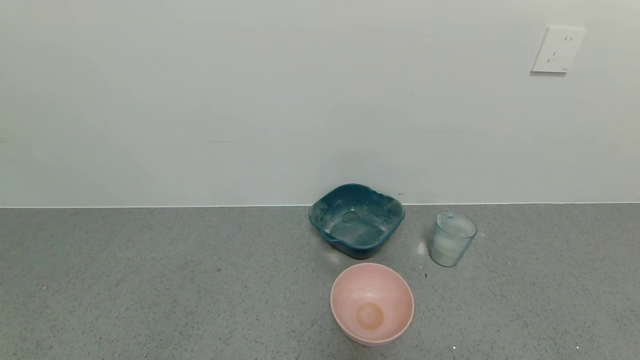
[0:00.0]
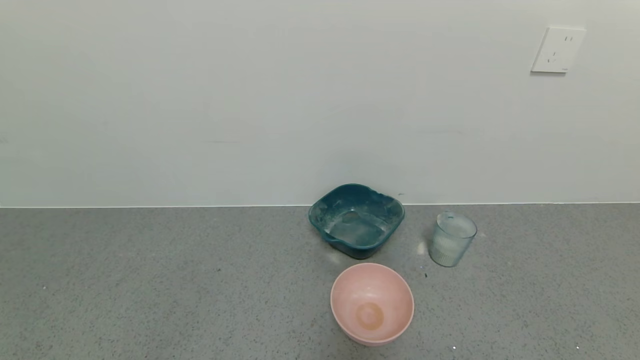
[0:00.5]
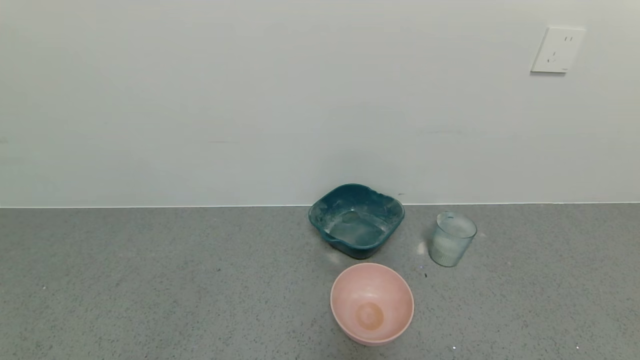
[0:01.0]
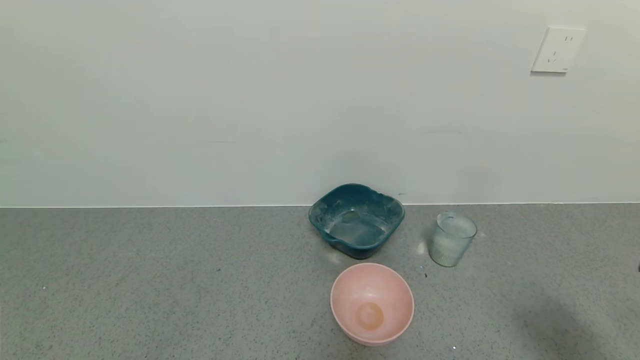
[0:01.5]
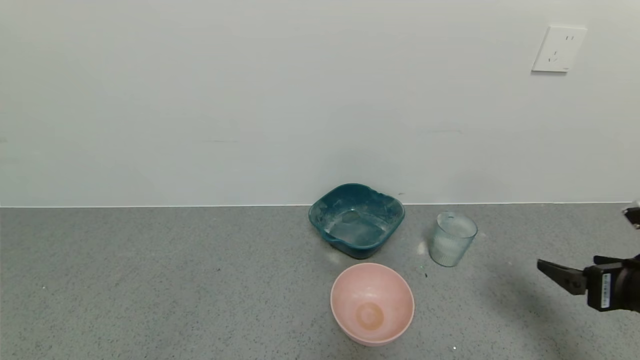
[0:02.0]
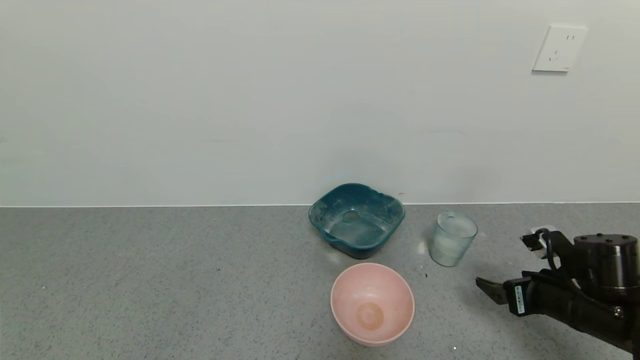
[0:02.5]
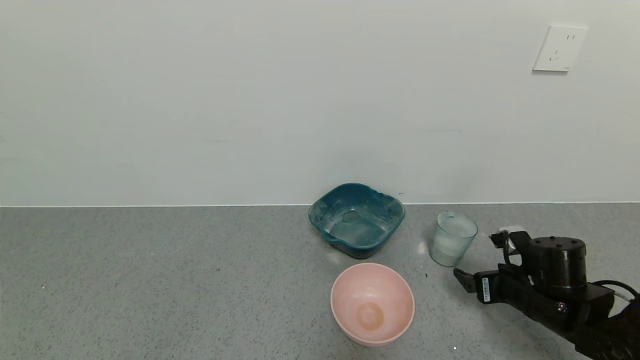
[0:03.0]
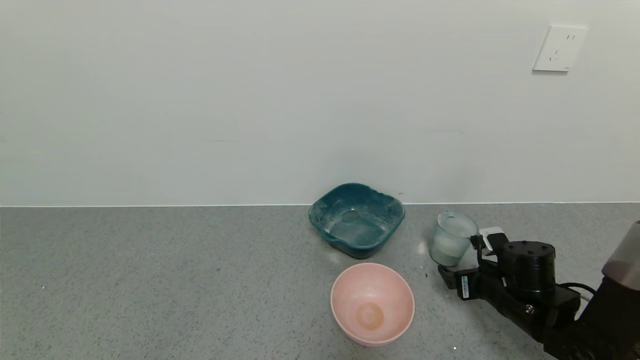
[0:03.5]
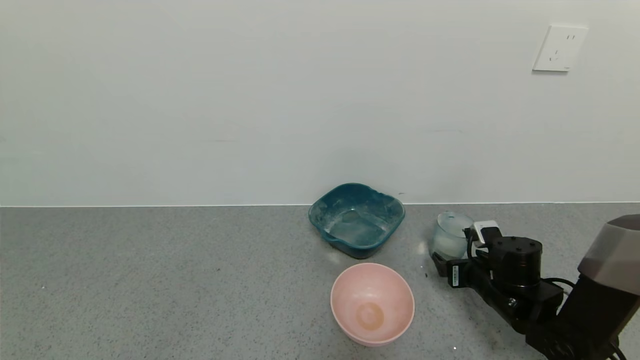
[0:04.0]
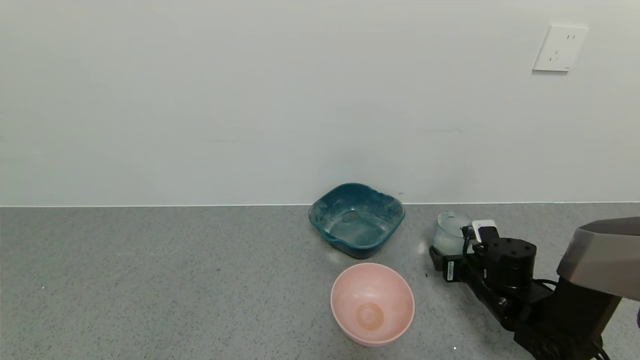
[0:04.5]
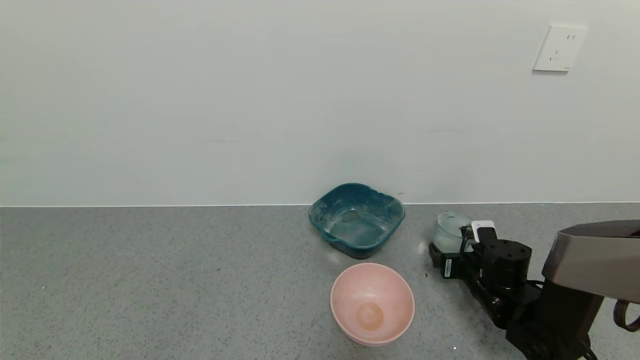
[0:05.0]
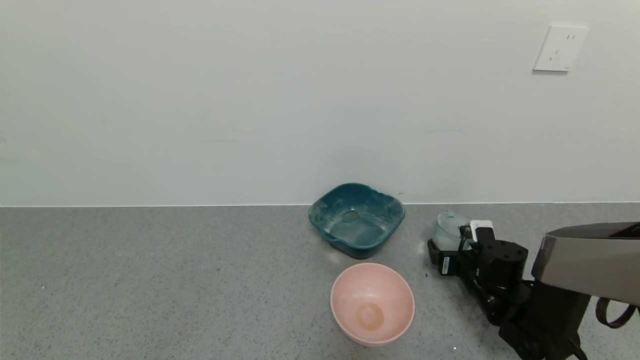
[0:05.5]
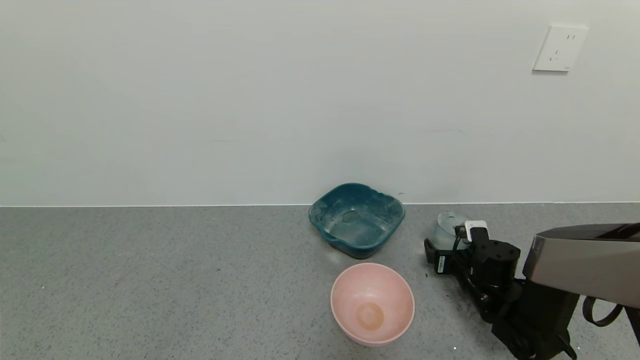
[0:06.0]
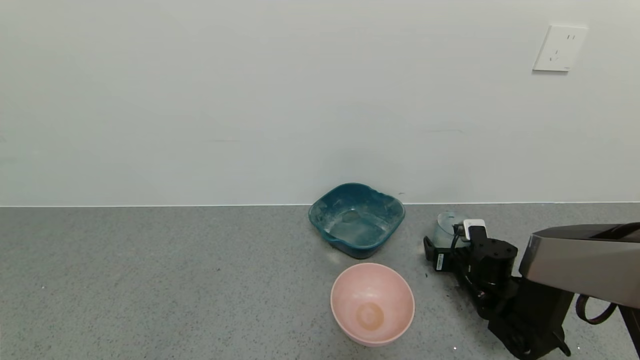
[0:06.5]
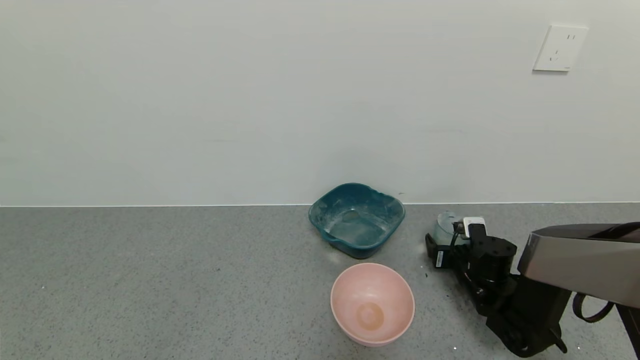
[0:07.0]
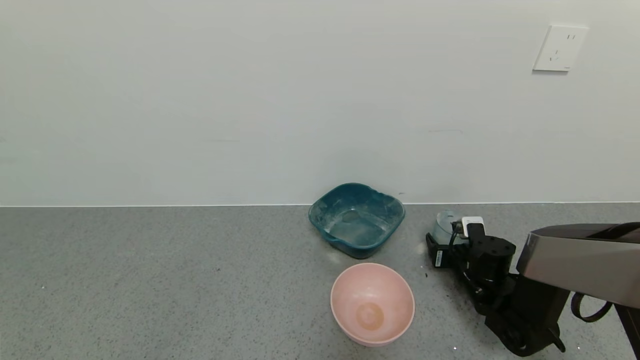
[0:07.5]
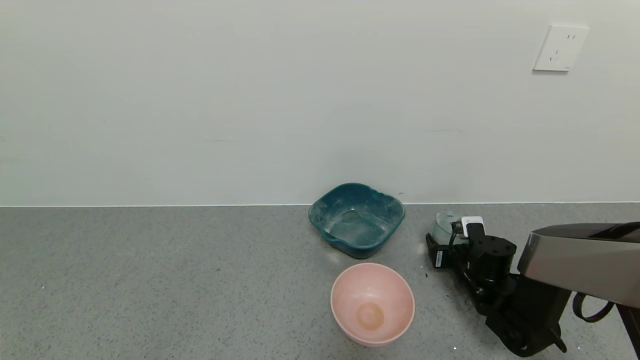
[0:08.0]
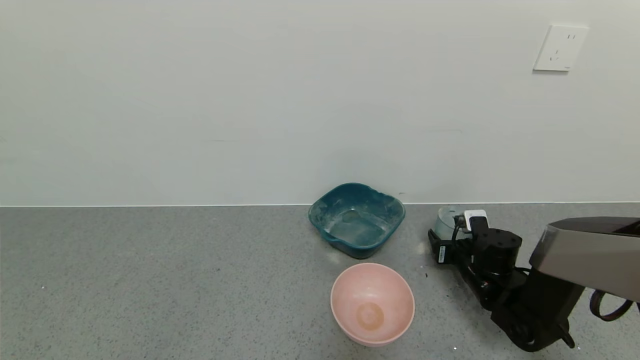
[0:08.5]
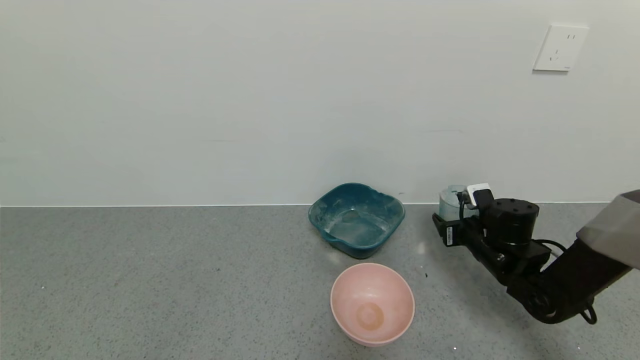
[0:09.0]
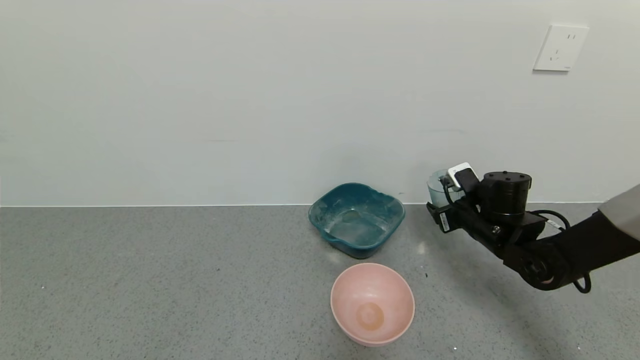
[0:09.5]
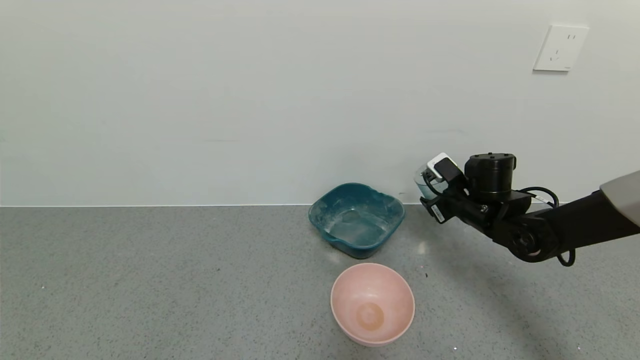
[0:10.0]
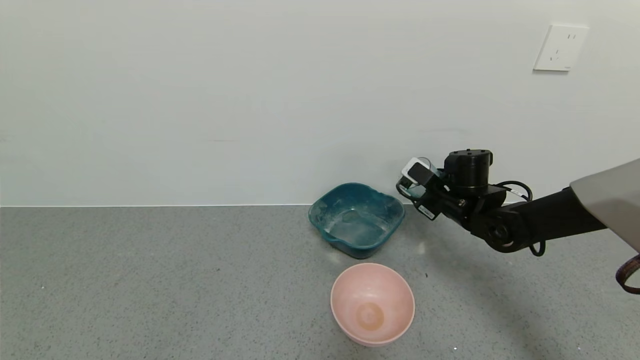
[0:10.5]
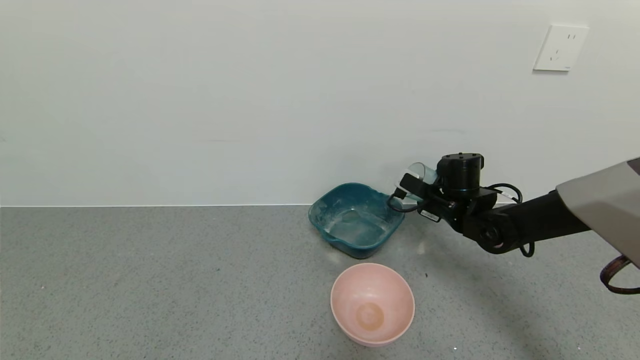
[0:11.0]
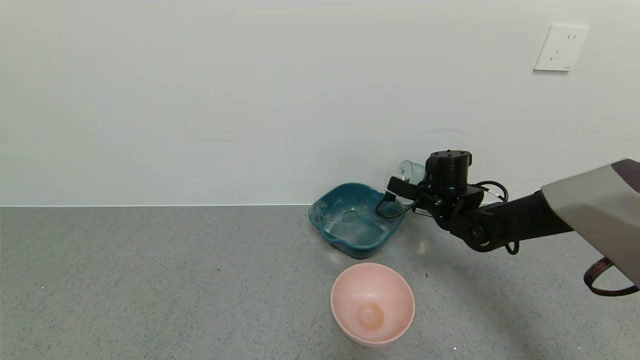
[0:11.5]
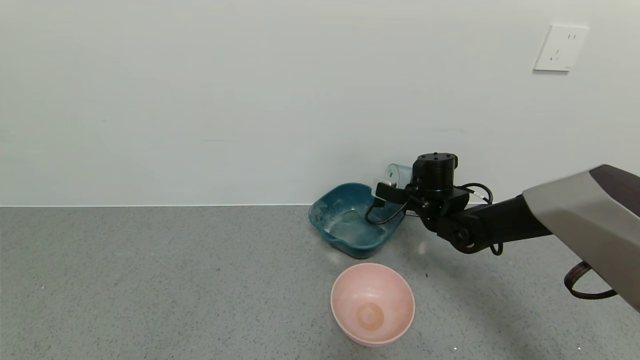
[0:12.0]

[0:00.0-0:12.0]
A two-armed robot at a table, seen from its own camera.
Task of the whole recording: use a gripper to pick up the cup and pour the powder into a bowl or tray.
Step, 0:00.0 to 0:07.5: Grasp the glass of powder with the right gripper.
0:00.0 to 0:02.0: The right gripper heads forward, covering some 20 cm.
0:02.0 to 0:04.0: The right gripper travels downward, forward and to the left by roughly 20 cm.
0:04.0 to 0:06.0: The right gripper changes place by approximately 5 cm.
0:06.0 to 0:08.0: The right gripper closes.
0:08.0 to 0:10.0: The right gripper goes some 15 cm upward.
0:10.0 to 0:12.0: The right gripper goes approximately 5 cm to the left.

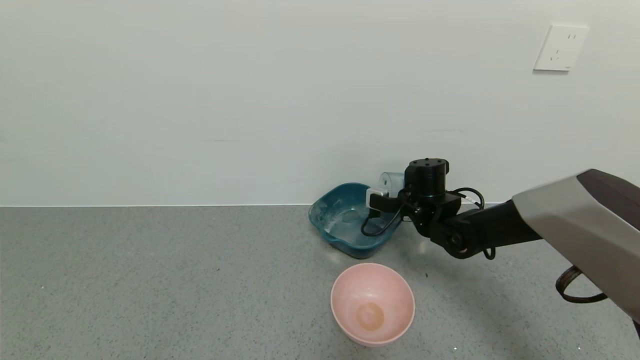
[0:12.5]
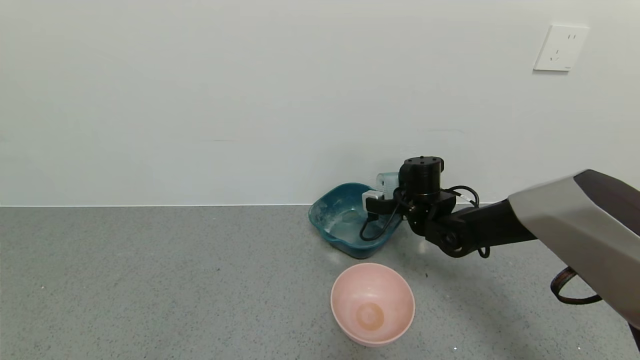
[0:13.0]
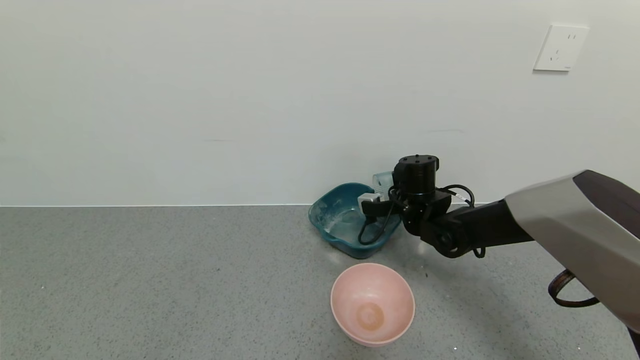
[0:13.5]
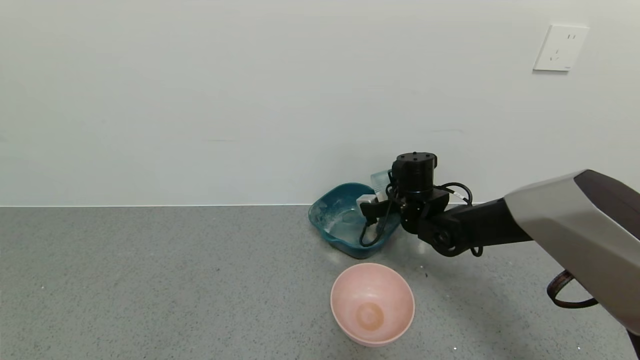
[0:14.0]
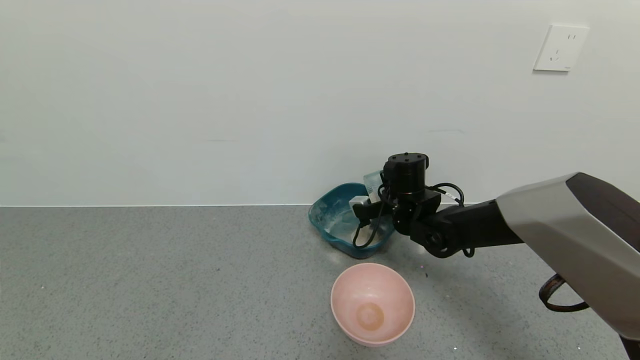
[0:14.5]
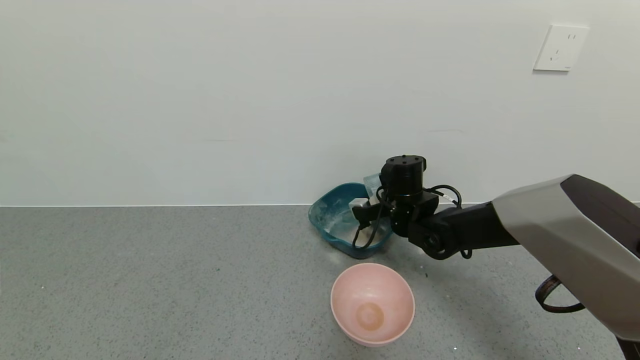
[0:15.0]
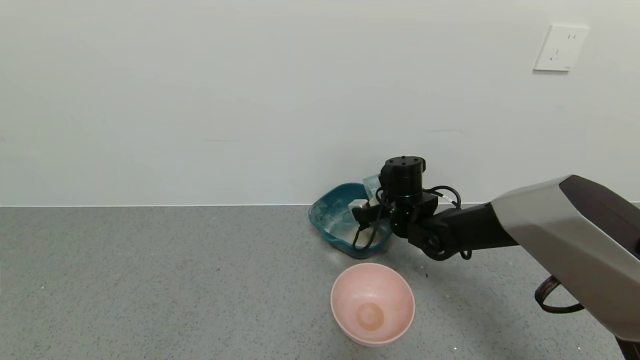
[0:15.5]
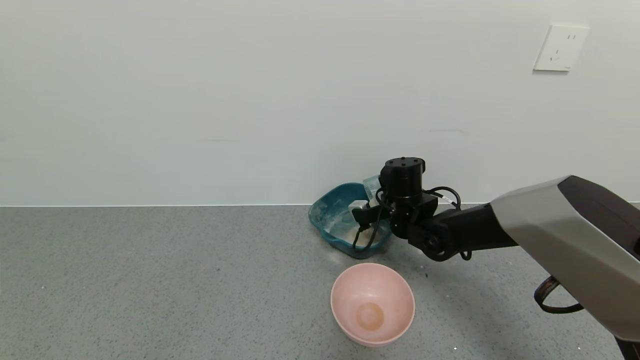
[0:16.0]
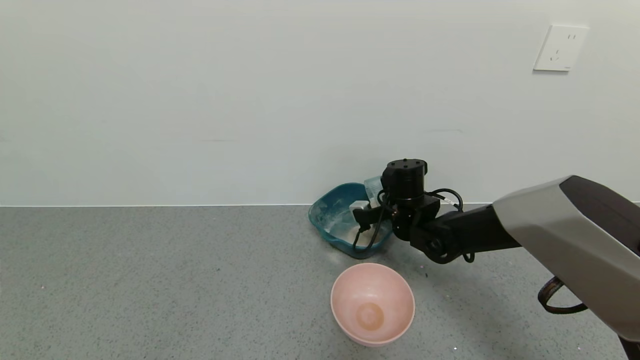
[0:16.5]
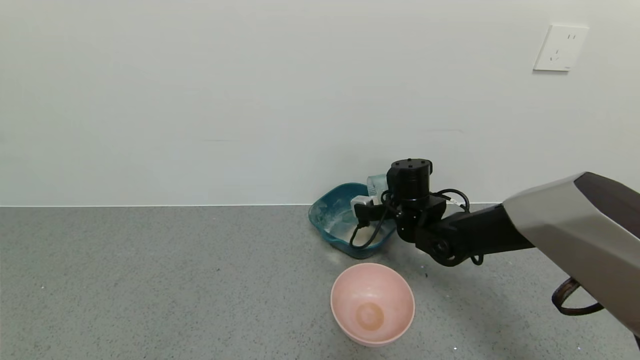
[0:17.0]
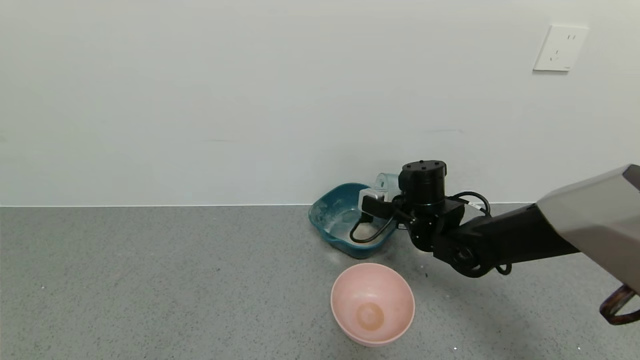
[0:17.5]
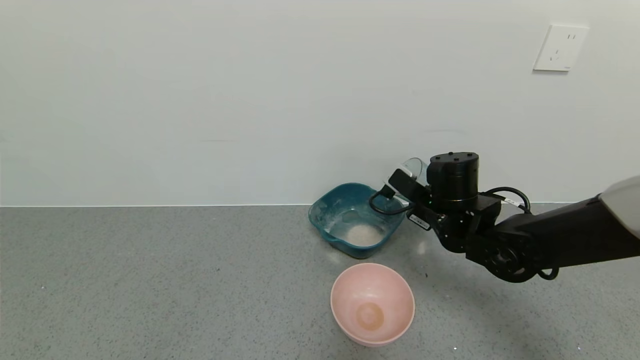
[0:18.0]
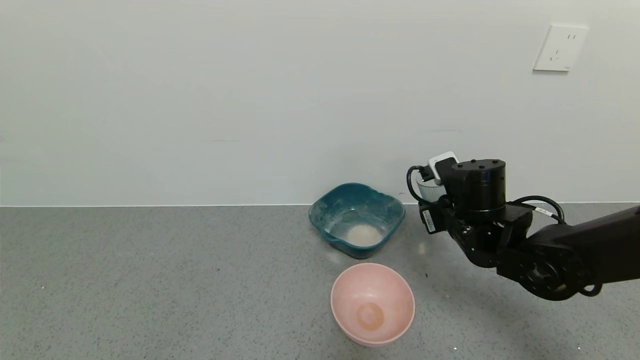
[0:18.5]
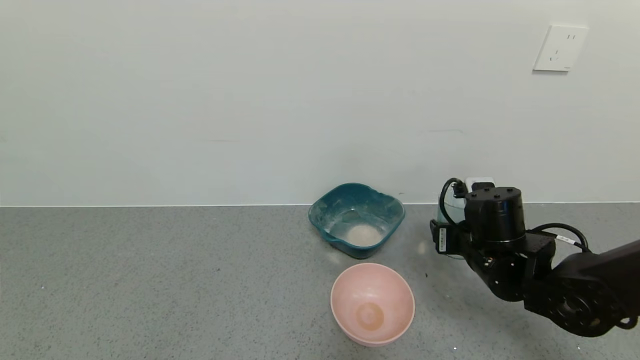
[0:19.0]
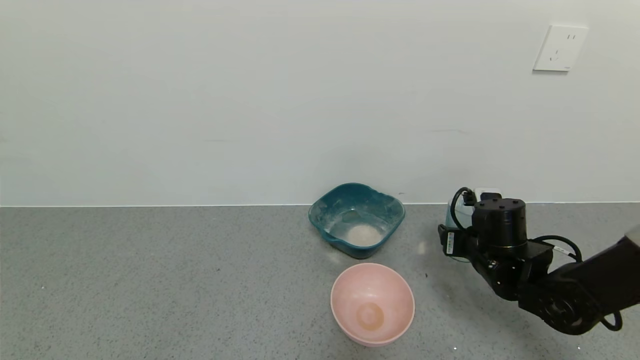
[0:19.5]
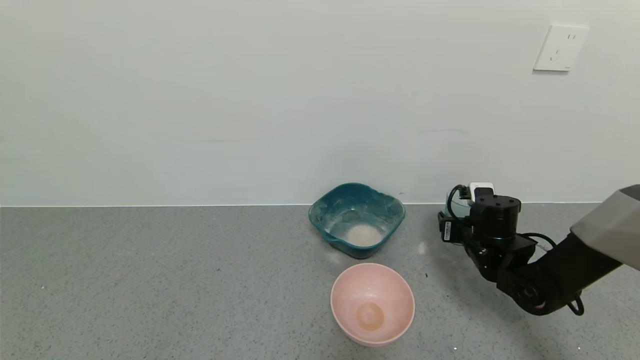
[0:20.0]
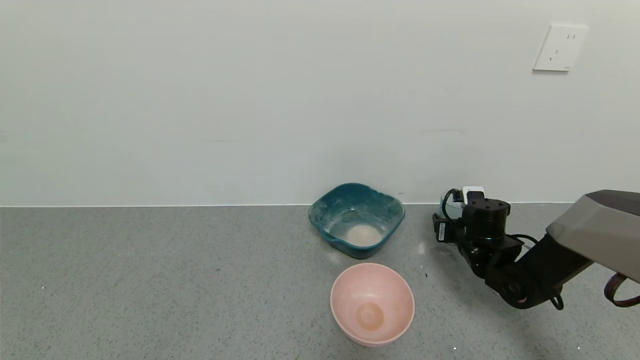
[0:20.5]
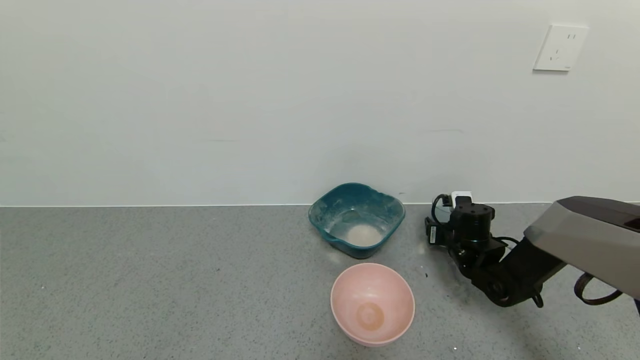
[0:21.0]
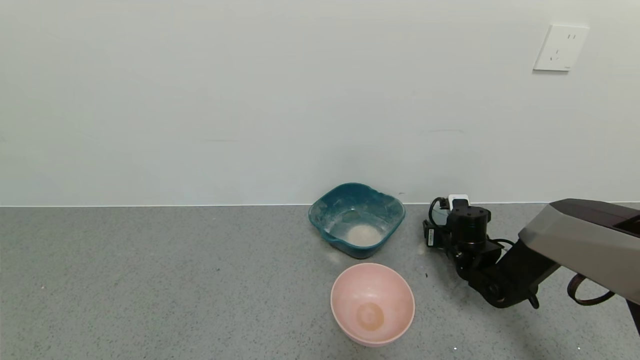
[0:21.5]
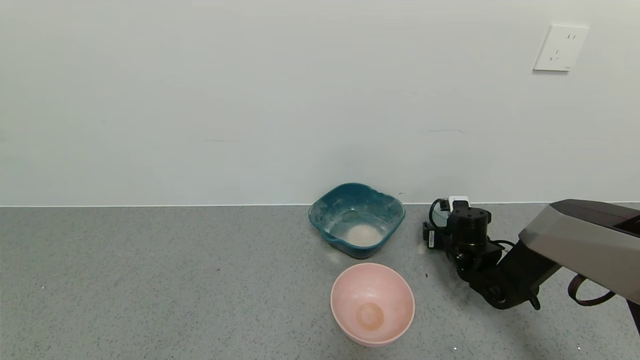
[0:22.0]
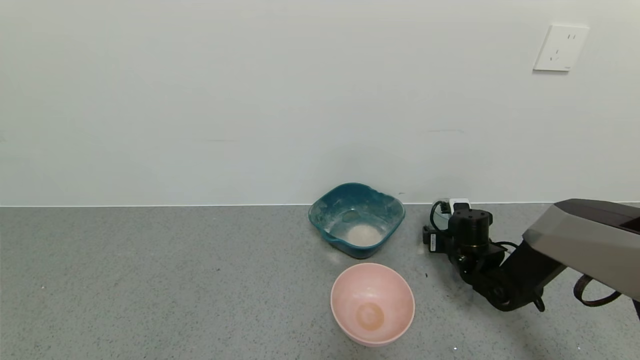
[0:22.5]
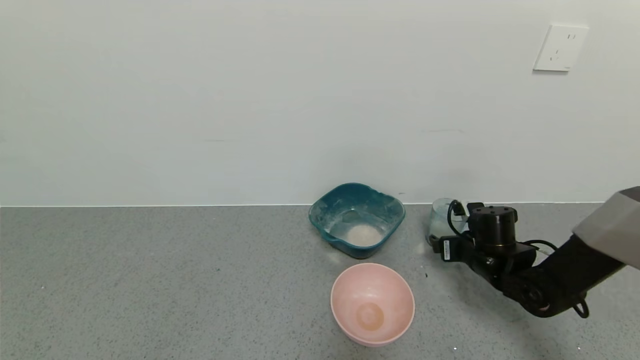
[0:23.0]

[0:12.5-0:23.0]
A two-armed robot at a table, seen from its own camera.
Task of the whole recording: use a gripper to pick up the cup and pour the powder into a bowl or tray.
Step, 0:12.5 to 0:16.5: Pour the powder into the pink bowl with the right gripper.
Step, 0:17.0 to 0:23.0: Place the glass cup down with the right gripper.
0:14.5 to 0:16.5: Neither gripper changes place.
0:16.5 to 0:19.0: The right gripper goes some 15 cm backward and to the right.
0:19.0 to 0:21.0: The right gripper travels forward and downward by approximately 15 cm.
0:21.0 to 0:23.0: The right gripper moves approximately 5 cm, and opens up.
